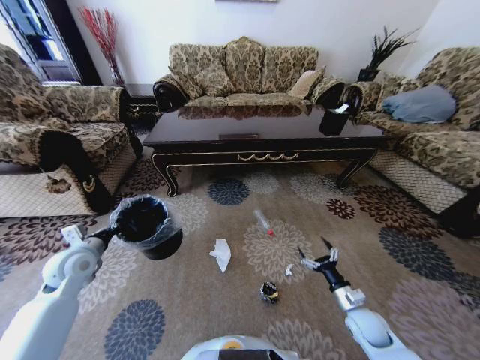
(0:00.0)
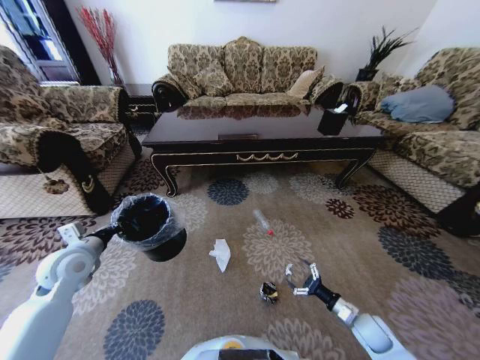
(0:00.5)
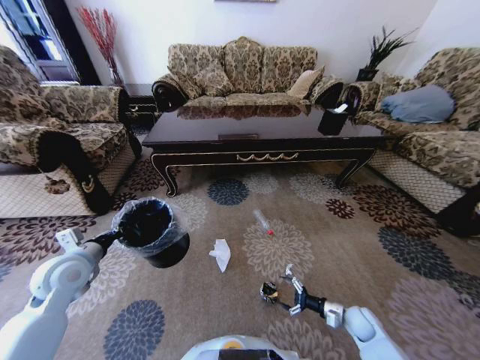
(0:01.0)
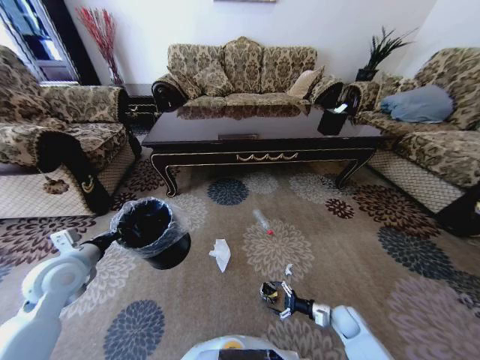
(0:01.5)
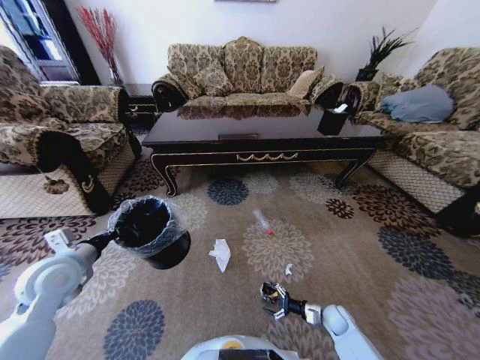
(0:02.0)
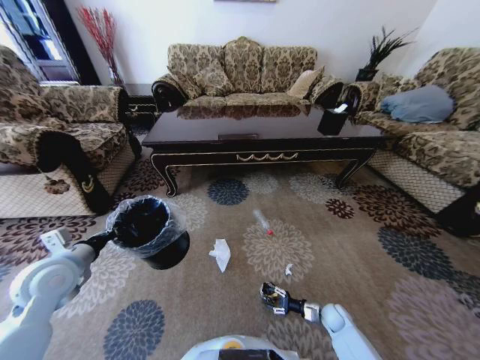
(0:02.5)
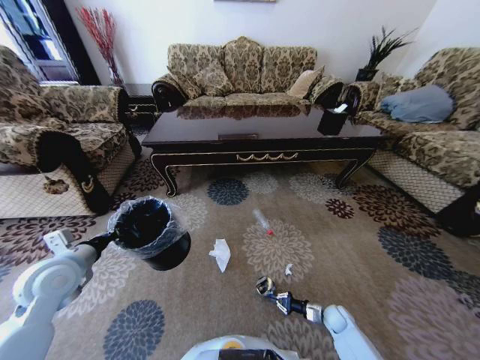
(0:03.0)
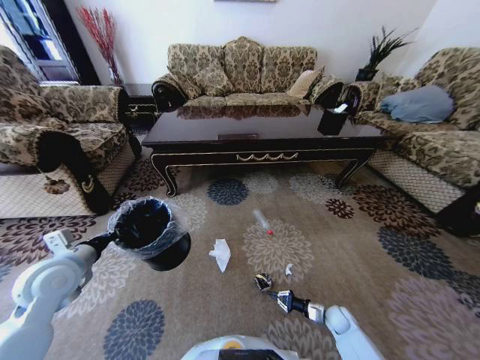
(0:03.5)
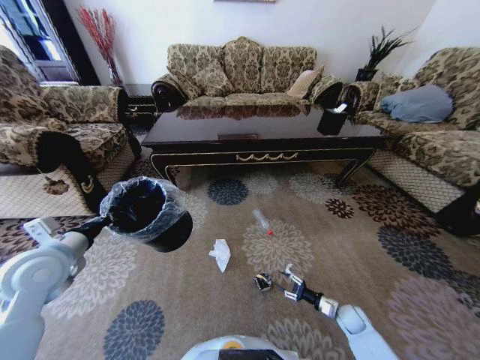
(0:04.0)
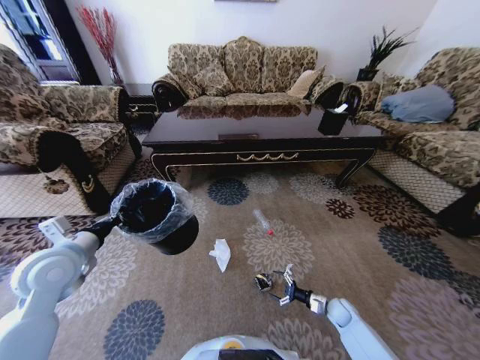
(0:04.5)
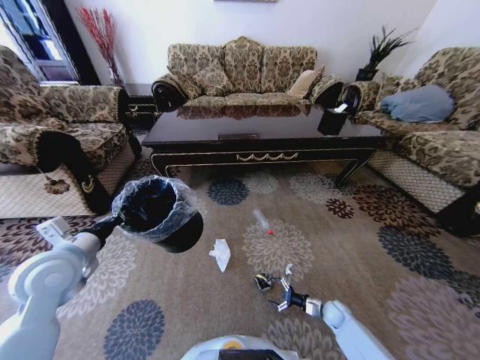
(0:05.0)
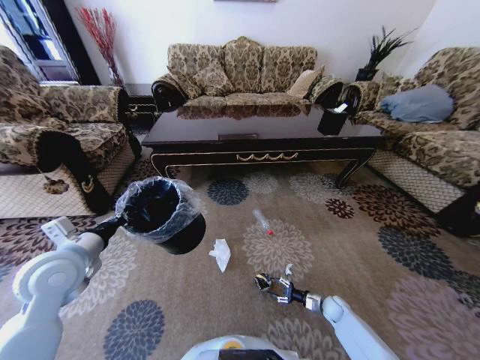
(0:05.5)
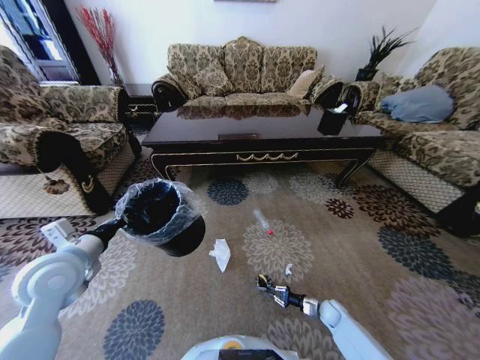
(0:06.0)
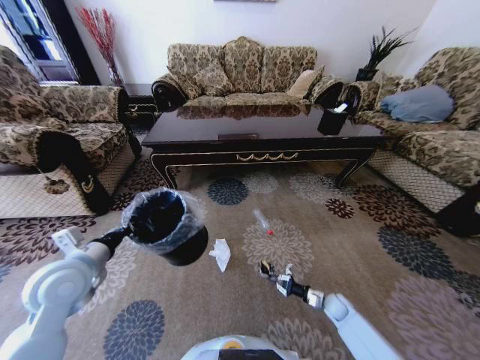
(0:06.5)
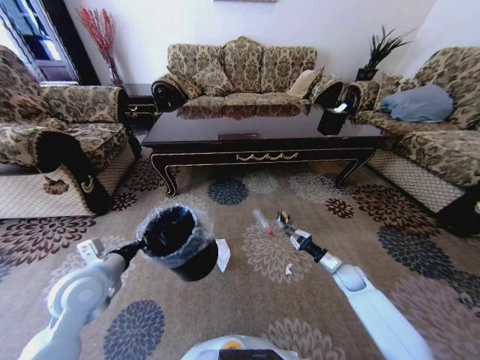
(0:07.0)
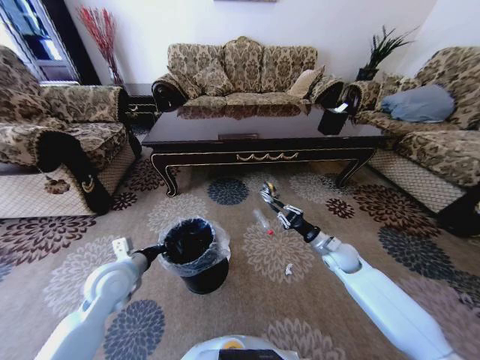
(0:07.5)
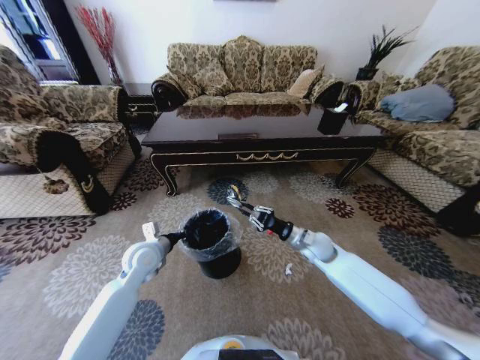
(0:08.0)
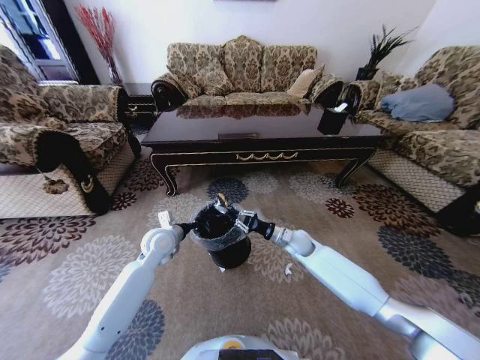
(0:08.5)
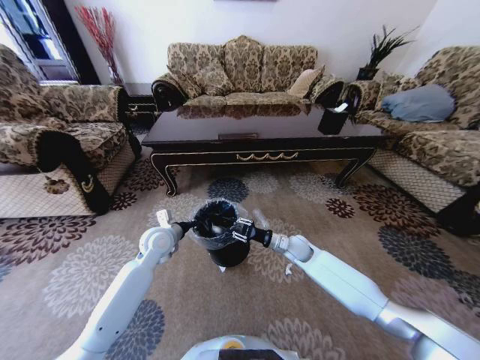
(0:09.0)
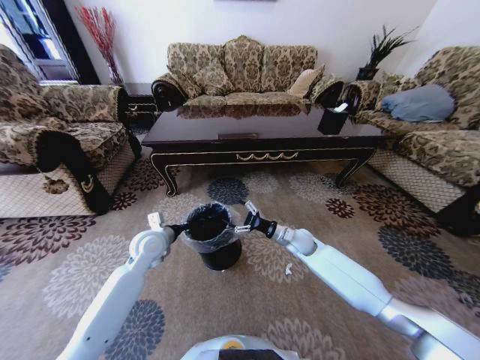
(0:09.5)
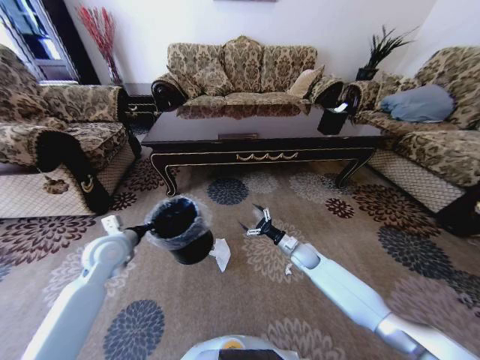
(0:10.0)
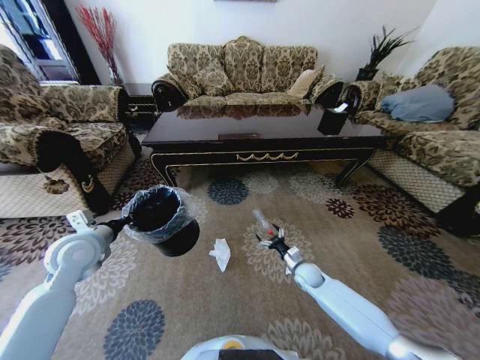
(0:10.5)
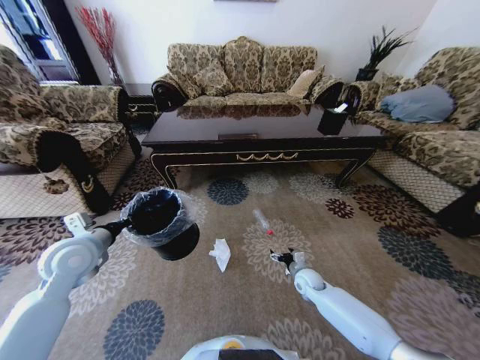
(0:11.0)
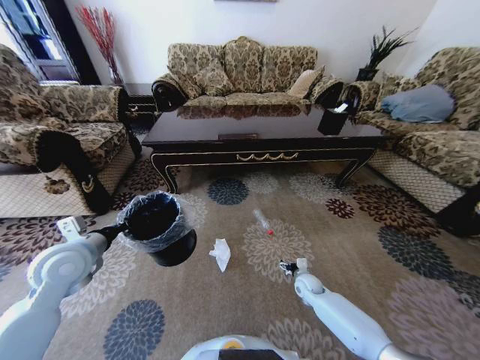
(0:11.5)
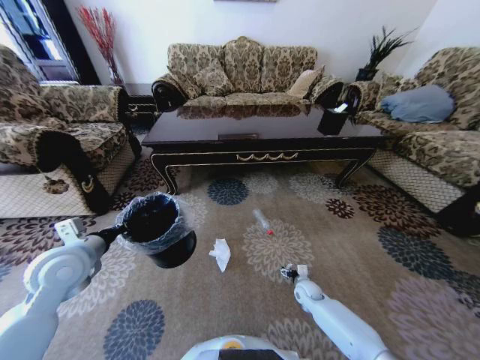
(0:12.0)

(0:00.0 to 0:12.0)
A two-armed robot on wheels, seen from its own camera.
Task of the whole recording: Move to the front of the table and pick up the trash from the floor, then place it into the trash bin.
0:00.0 - 0:02.0: The left gripper ends up roughly 5 cm from where it was. Meanwhile the right gripper travels downward by some 10 cm.
0:02.0 - 0:04.0: The right gripper closes up.
0:04.0 - 0:06.0: The right gripper shifts by roughly 5 cm, and opens, then closes once more.
0:06.0 - 0:08.0: The left gripper is displaced downward, to the right and forward by roughly 15 cm, while the right gripper travels upward, to the left and forward by roughly 35 cm.
0:08.0 - 0:10.0: The right gripper moves downward, some 10 cm, and opens up. The left gripper travels to the left by approximately 10 cm.
0:10.0 - 0:12.0: The right gripper is displaced downward and backward by roughly 15 cm. Meanwhile the left gripper heads backward and upward, covering roughly 10 cm.

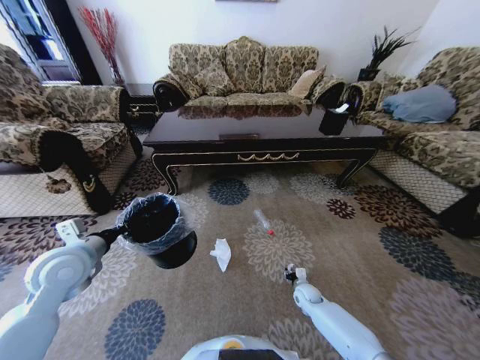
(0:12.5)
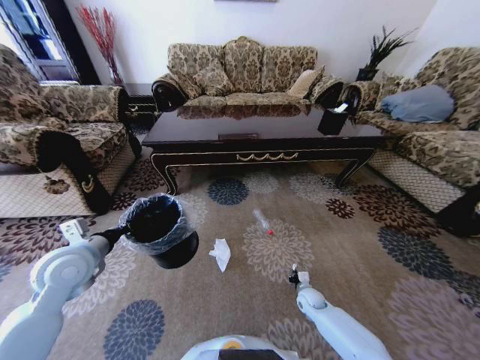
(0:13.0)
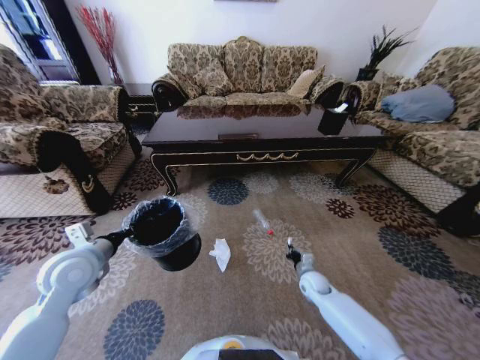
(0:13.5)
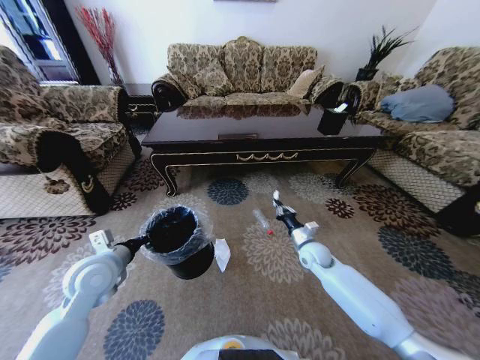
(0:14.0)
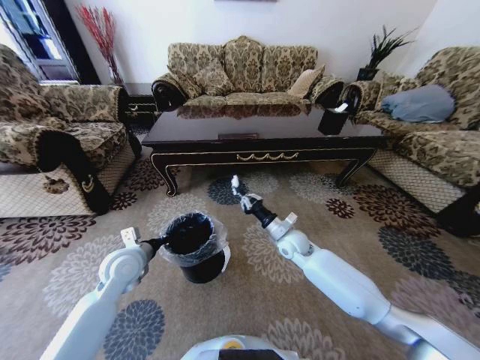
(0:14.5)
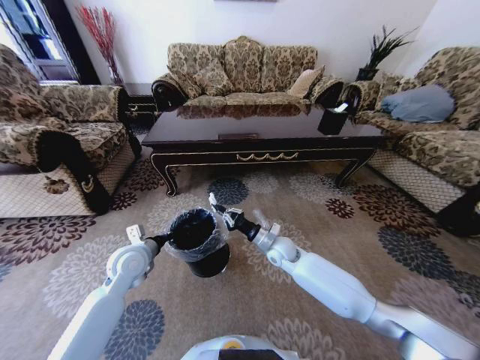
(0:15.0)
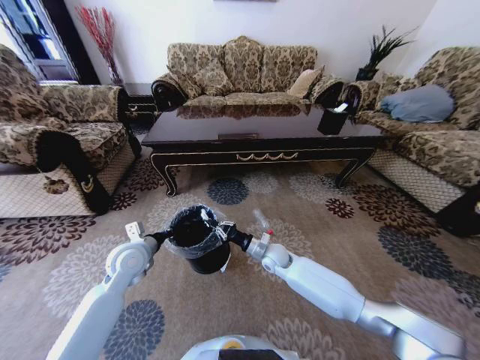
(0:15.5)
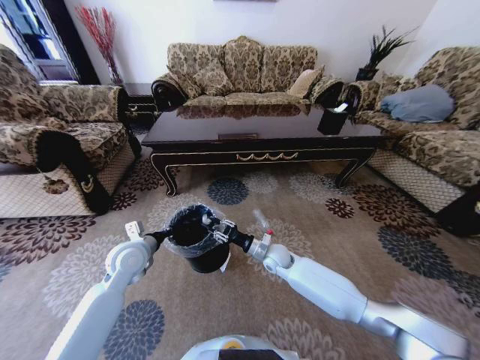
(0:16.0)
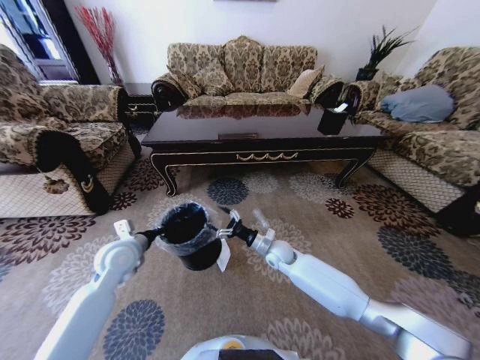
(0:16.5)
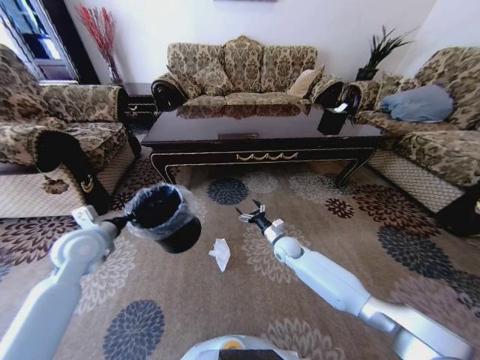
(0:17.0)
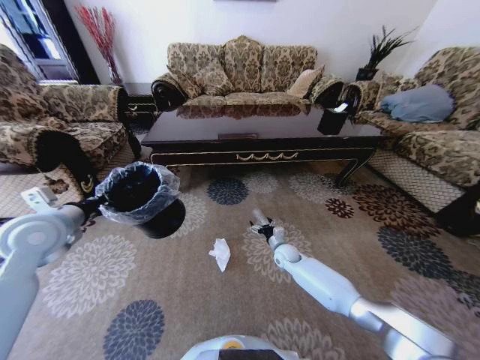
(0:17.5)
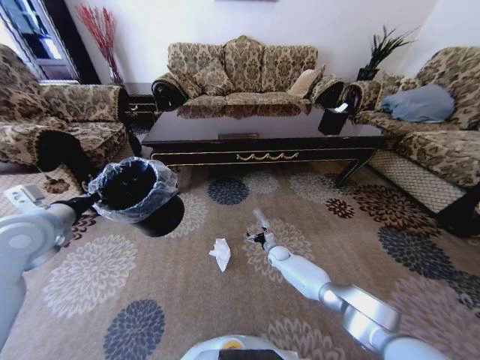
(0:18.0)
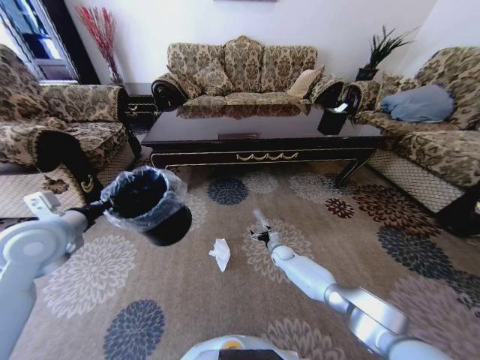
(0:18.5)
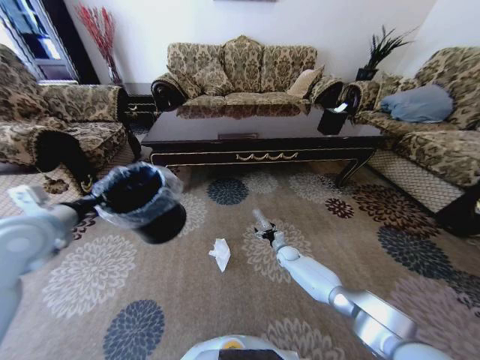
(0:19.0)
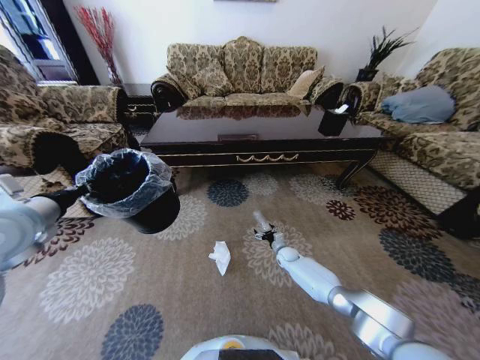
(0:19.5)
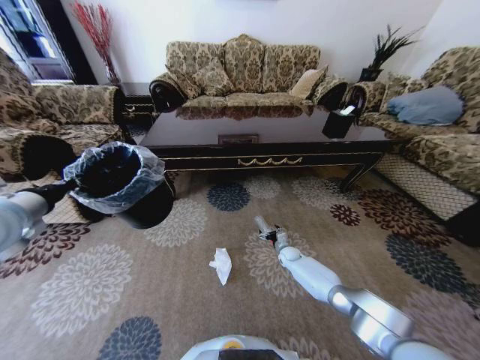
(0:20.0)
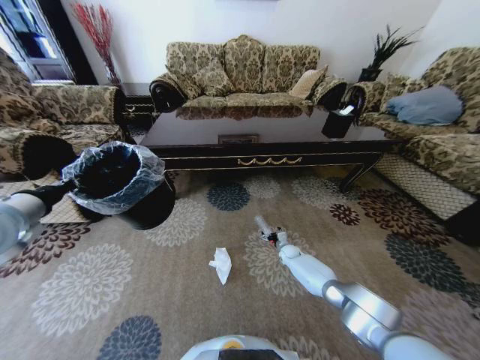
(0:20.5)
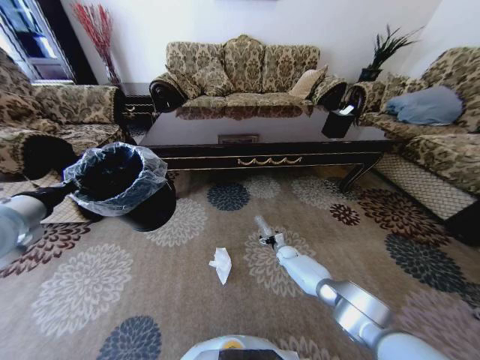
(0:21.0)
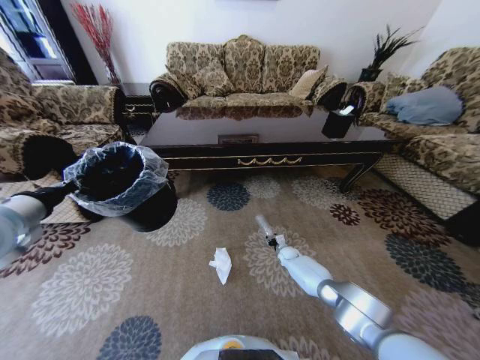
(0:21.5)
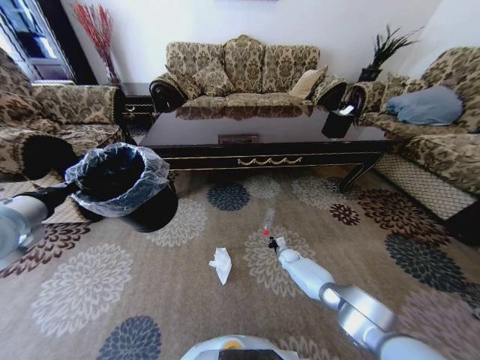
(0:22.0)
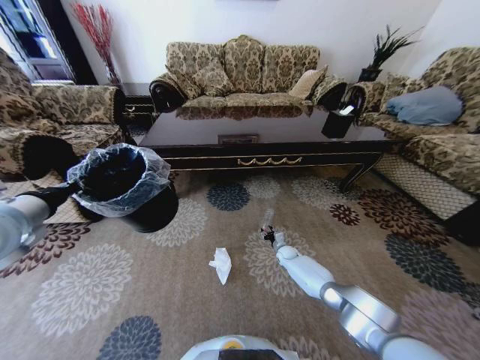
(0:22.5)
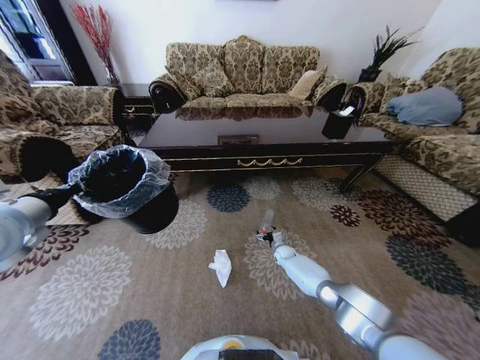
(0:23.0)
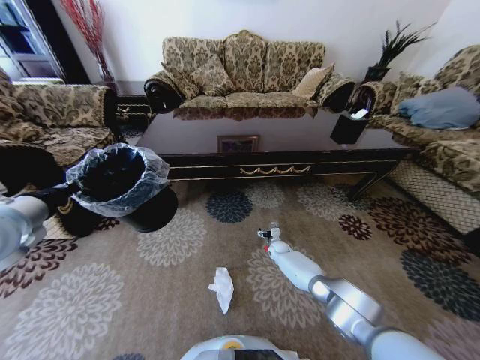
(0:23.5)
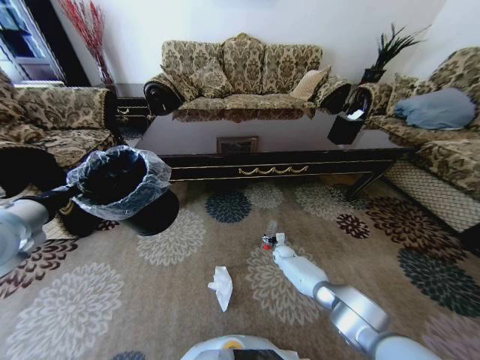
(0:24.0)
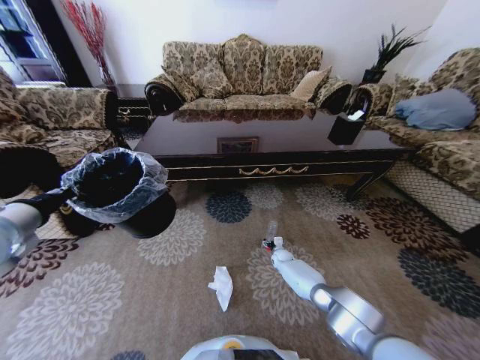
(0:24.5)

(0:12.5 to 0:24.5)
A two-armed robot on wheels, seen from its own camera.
Task of the whole recording: Move to the front of the table and pick up the trash from the floor, then place it into the trash bin.
0:12.5 - 0:14.5: The right gripper heads upward and to the left, covering about 25 cm, and closes its fingers. Meanwhile the left gripper heads downward and to the right, covering approximately 10 cm.
0:14.5 - 0:16.5: The right gripper goes about 5 cm downward, and opens.
0:16.5 - 0:18.5: The left gripper is displaced upward and to the left by about 15 cm, while the right gripper heads downward, to the right and forward, covering some 20 cm.
0:18.5 - 0:20.5: The left gripper moves upward, some 5 cm.
0:20.5 - 0:22.5: The right gripper closes its fingers.
0:22.5 - 0:24.5: The right gripper opens.

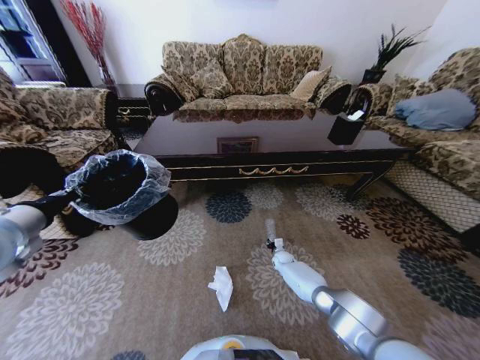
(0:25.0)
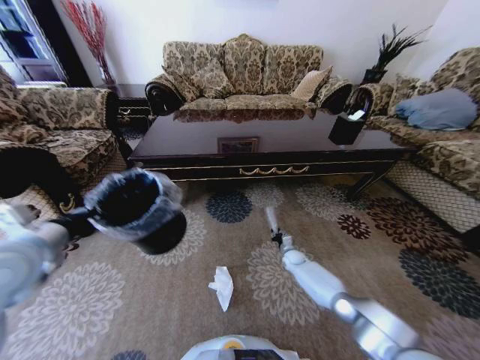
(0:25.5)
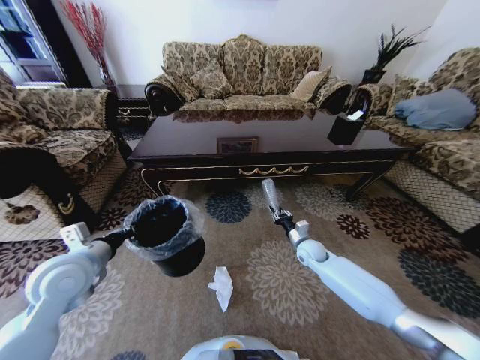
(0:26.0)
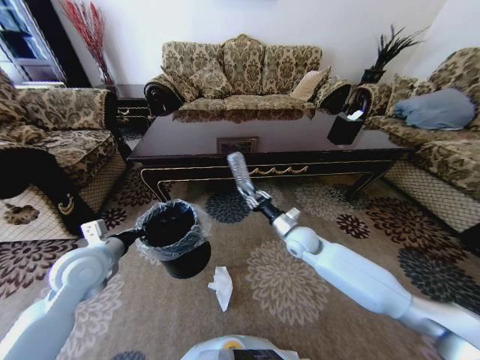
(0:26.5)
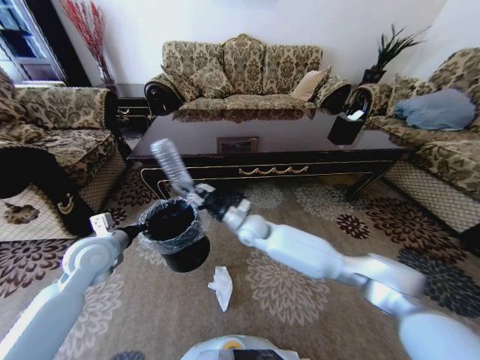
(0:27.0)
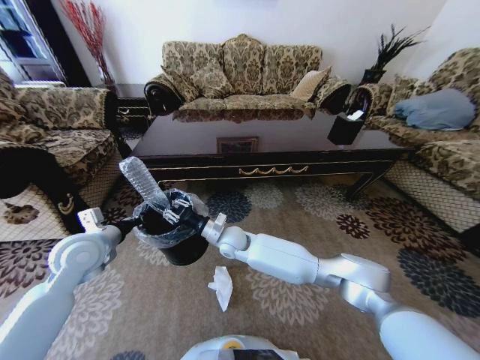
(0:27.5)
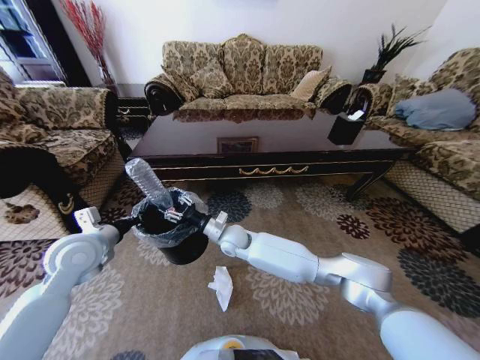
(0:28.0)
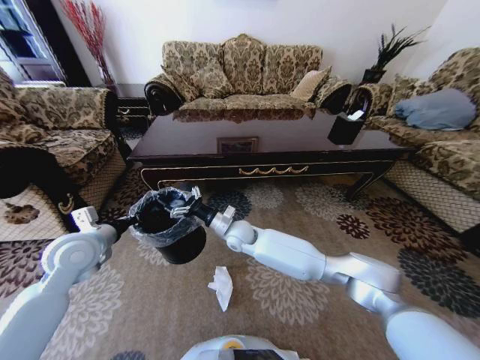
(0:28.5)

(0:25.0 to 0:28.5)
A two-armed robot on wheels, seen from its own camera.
Task of the whole recording: Move to the front of the table and pick up the trash from the floor, then place it into the trash bin.
0:25.0 - 0:27.0: The left gripper travels downward, to the right and forward by roughly 15 cm. Meanwhile the right gripper travels upward and to the left by some 35 cm.
0:27.0 - 0:28.5: The right gripper opens its fingers.
